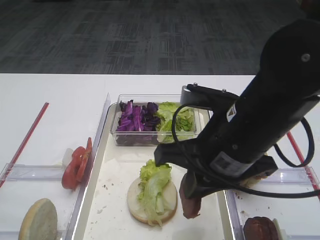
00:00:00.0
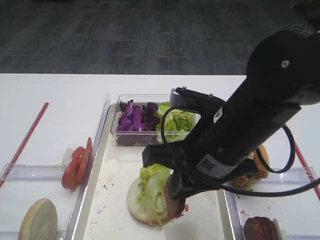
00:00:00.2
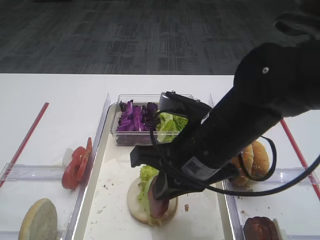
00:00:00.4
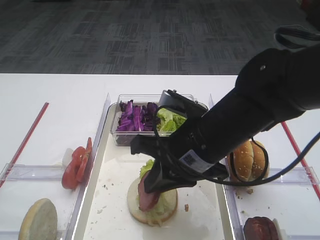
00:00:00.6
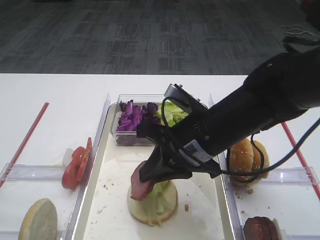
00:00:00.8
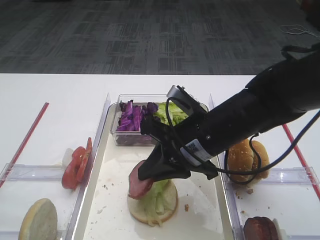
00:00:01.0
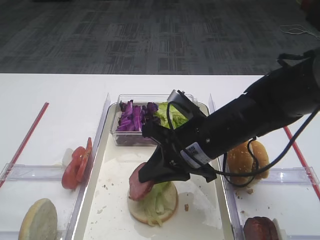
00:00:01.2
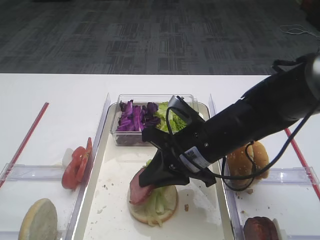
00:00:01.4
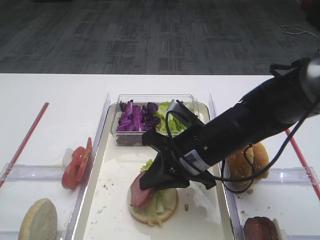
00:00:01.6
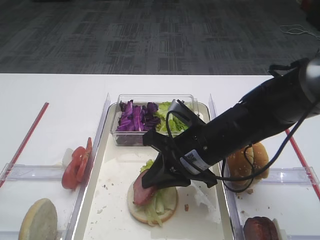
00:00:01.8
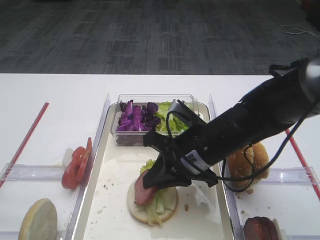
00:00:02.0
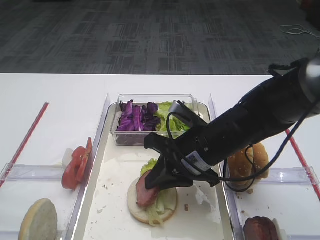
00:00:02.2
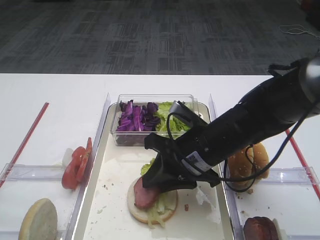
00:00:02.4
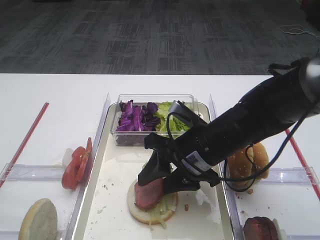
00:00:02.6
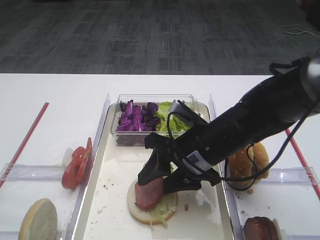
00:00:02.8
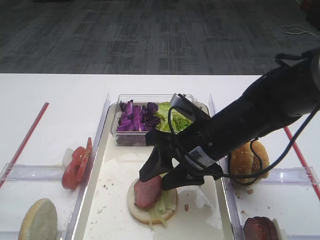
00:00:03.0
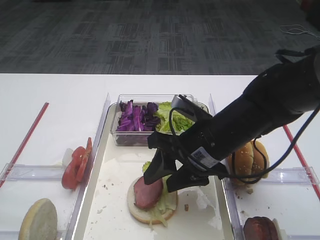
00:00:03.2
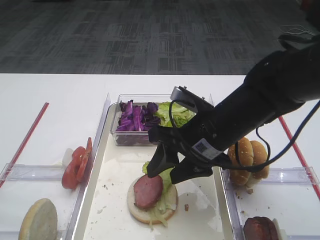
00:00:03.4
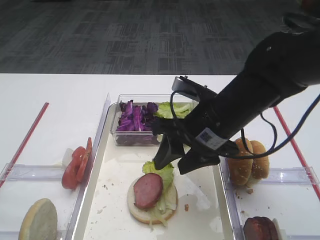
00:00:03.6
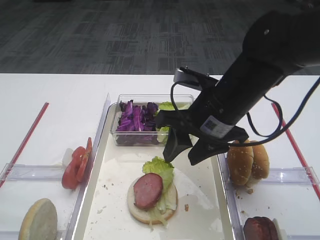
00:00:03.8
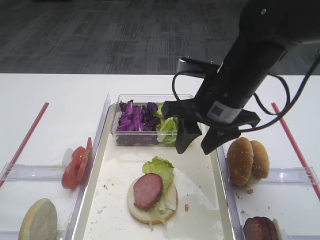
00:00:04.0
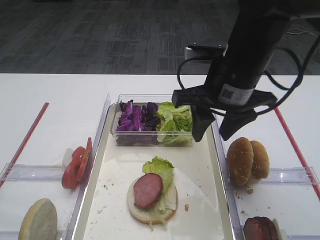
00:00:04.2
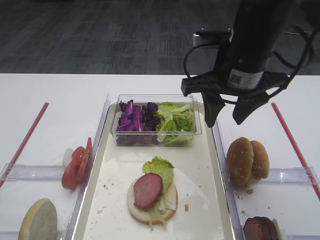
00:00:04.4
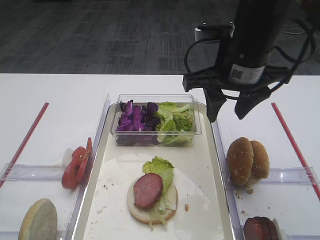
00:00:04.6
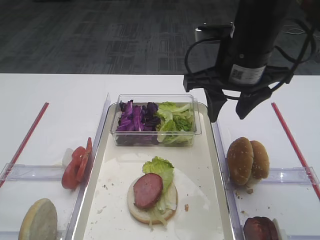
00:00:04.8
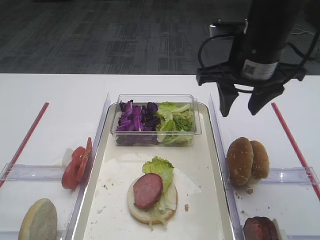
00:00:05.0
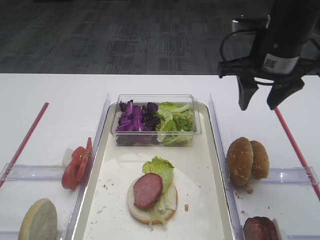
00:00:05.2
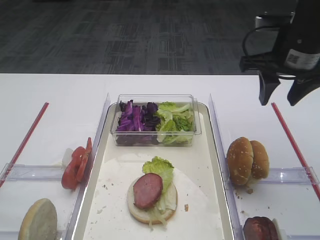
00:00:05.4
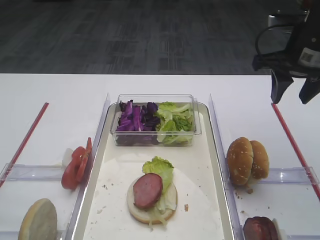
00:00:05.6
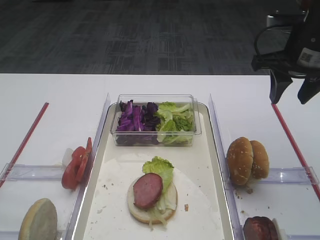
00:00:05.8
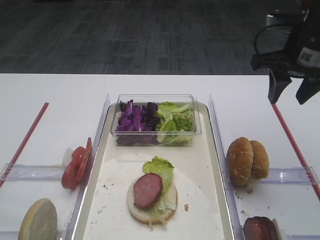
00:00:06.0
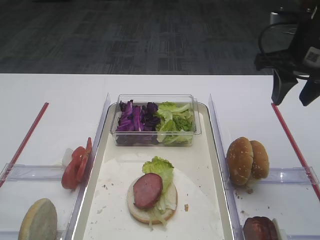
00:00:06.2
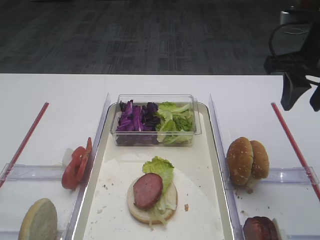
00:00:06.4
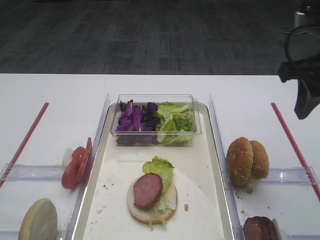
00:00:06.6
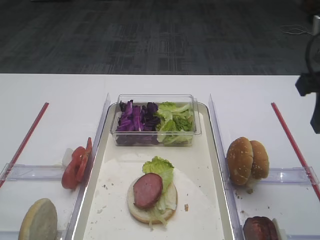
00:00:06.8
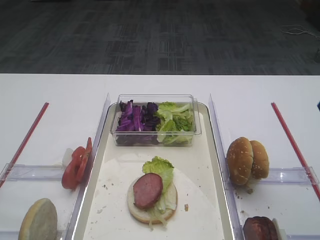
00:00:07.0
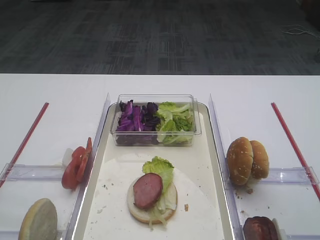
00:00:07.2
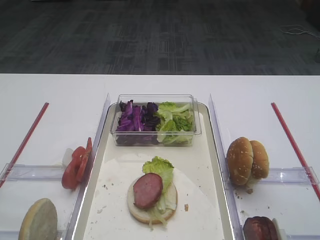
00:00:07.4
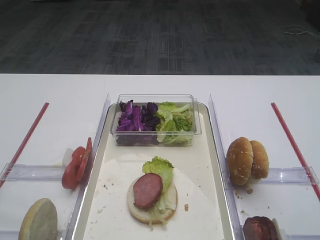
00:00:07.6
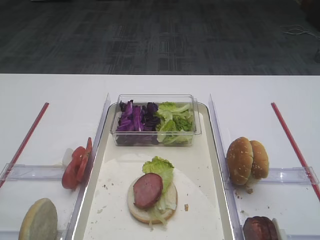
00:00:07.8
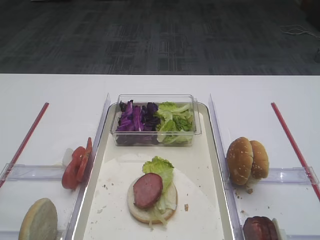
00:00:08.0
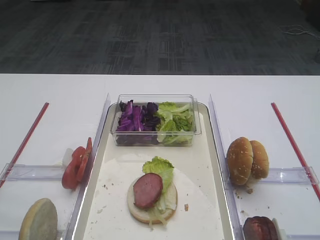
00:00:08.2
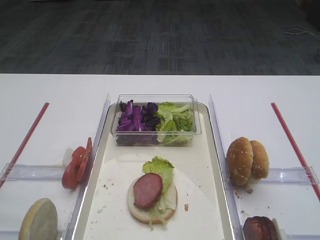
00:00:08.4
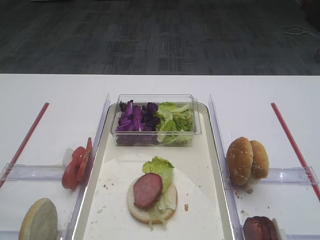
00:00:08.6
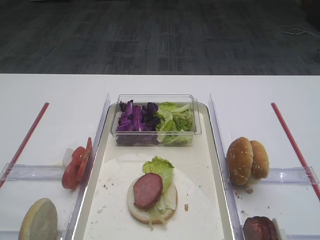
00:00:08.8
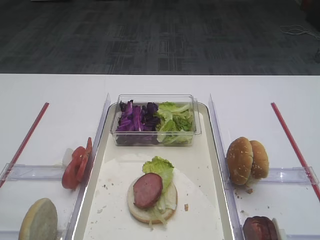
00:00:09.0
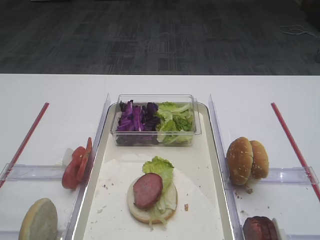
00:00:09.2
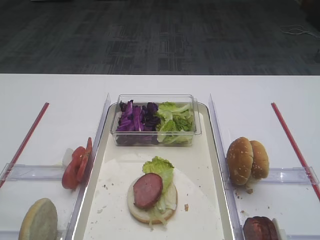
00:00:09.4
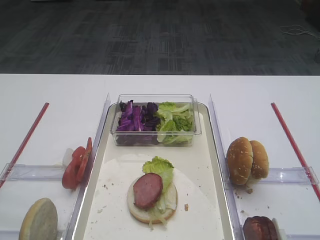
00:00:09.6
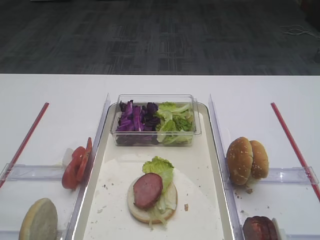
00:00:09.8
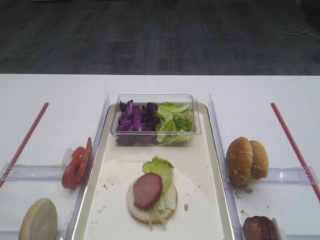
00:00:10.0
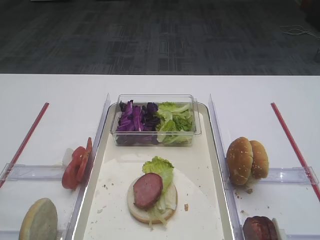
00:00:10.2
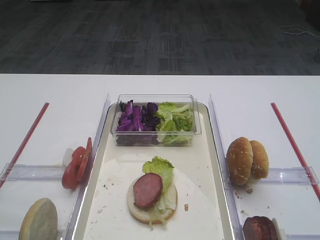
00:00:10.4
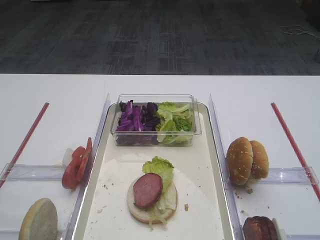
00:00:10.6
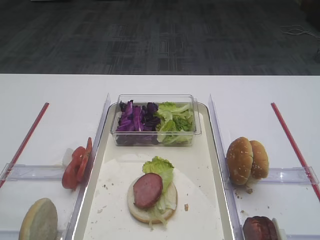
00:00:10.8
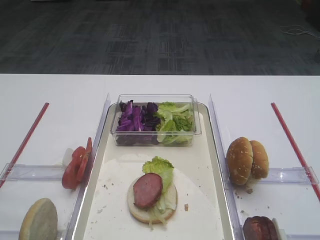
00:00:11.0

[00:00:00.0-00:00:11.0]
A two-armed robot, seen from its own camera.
Step, 00:00:00.0 to 00:00:04.0: Place the cutlet on the lettuce leaf with the right gripper.
00:00:00.0 to 00:00:01.6: The right gripper is displaced downward and forward by some 10 cm.
00:00:01.6 to 00:00:03.2: The right gripper opens.
00:00:03.2 to 00:00:04.8: The right gripper travels upward by approximately 10 cm.
00:00:04.8 to 00:00:06.2: The right gripper travels to the right by some 10 cm.
00:00:06.2 to 00:00:07.8: The right gripper goes some 25 cm backward.

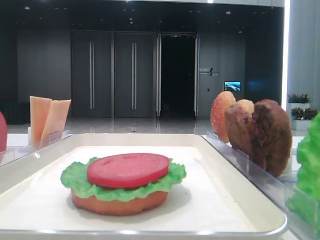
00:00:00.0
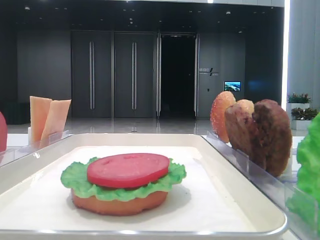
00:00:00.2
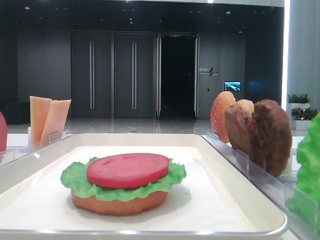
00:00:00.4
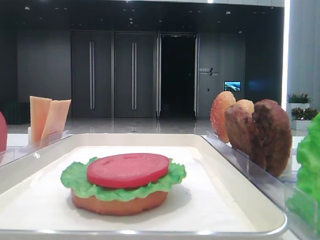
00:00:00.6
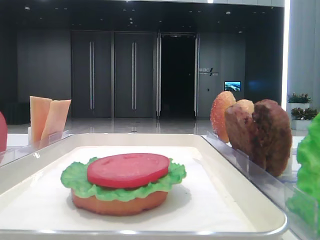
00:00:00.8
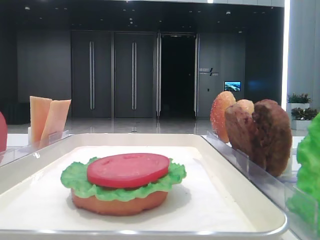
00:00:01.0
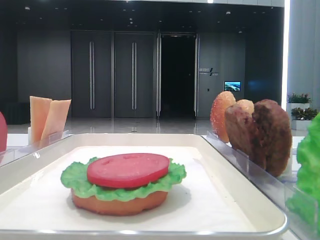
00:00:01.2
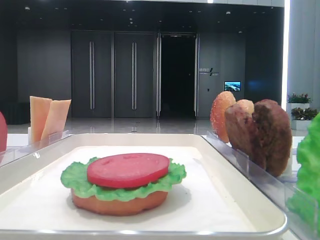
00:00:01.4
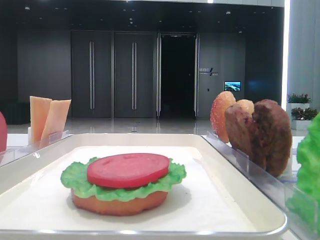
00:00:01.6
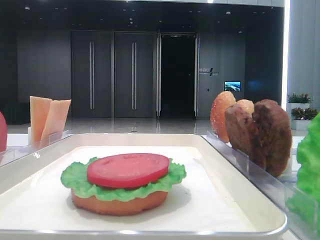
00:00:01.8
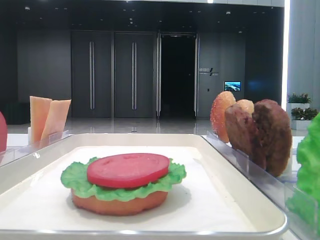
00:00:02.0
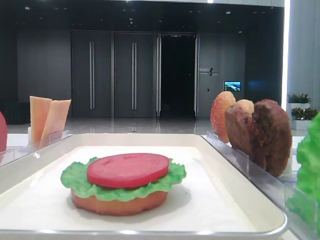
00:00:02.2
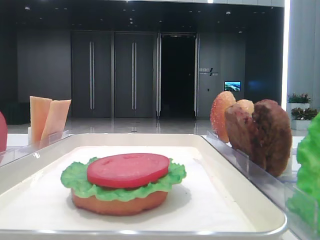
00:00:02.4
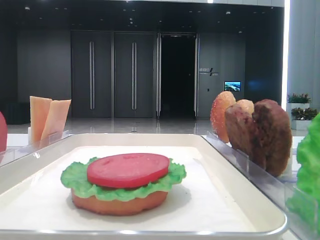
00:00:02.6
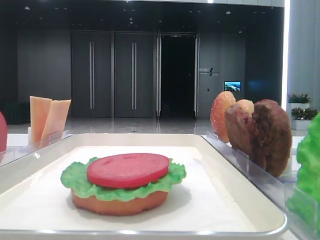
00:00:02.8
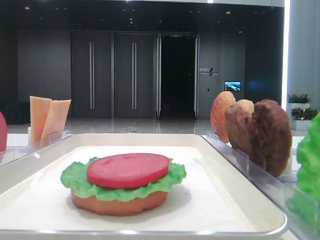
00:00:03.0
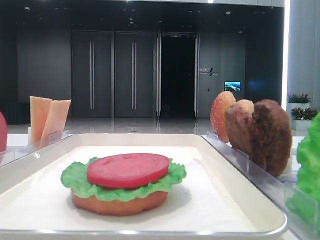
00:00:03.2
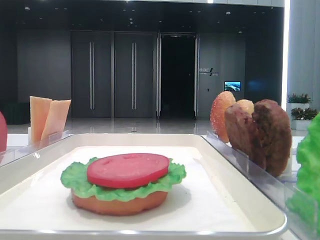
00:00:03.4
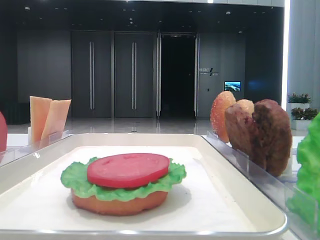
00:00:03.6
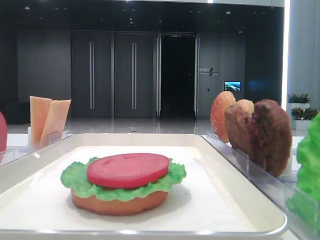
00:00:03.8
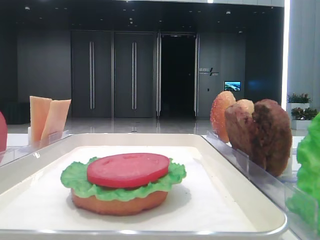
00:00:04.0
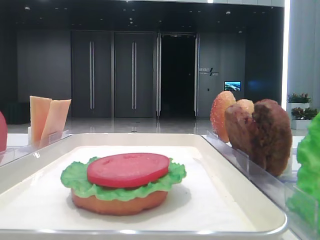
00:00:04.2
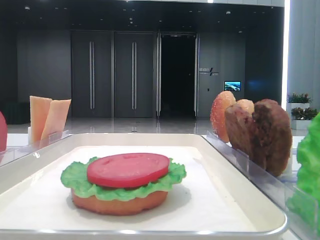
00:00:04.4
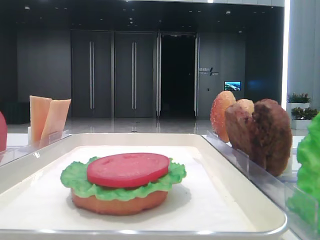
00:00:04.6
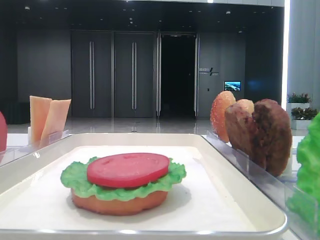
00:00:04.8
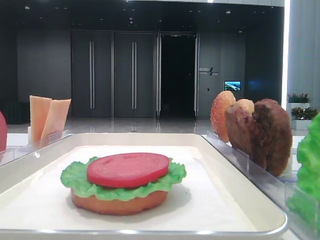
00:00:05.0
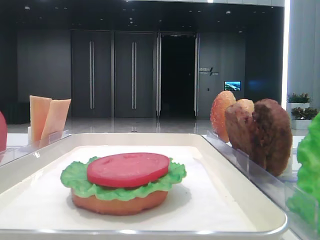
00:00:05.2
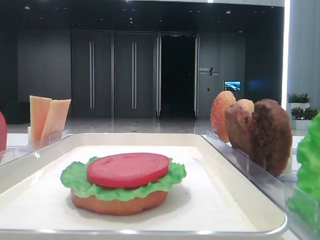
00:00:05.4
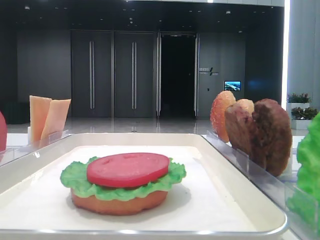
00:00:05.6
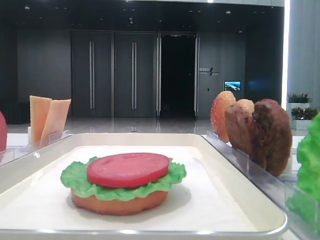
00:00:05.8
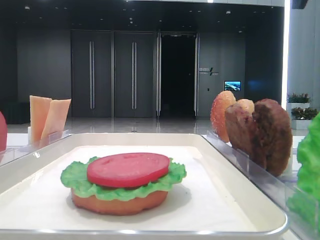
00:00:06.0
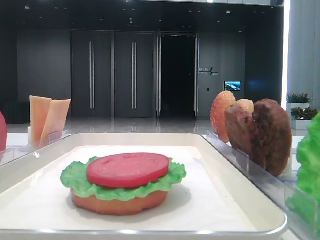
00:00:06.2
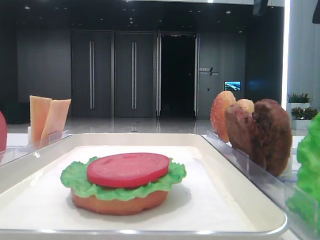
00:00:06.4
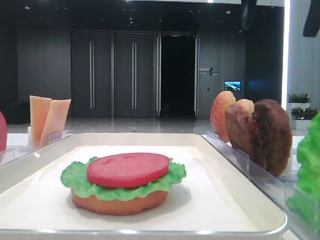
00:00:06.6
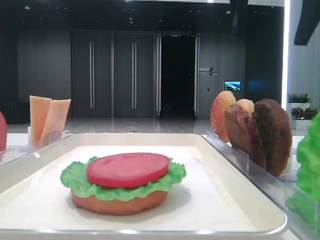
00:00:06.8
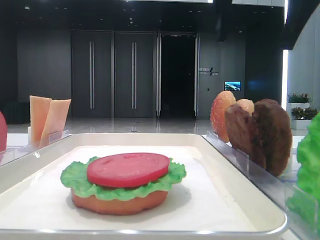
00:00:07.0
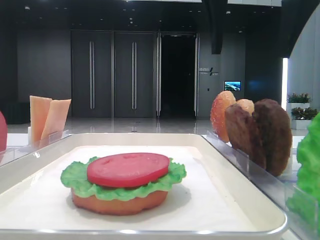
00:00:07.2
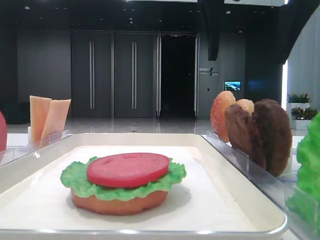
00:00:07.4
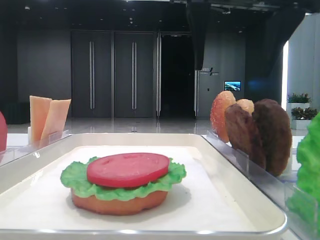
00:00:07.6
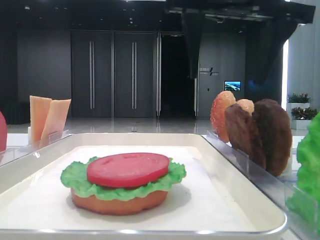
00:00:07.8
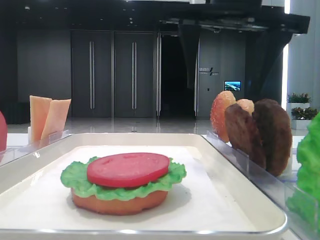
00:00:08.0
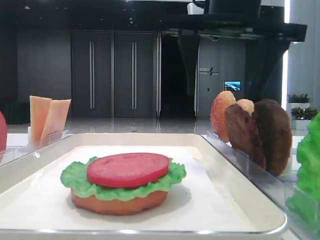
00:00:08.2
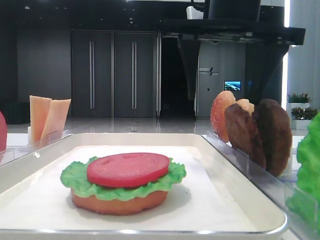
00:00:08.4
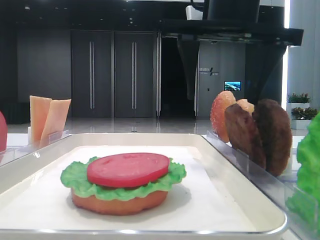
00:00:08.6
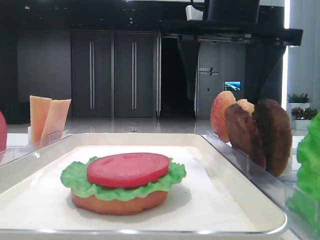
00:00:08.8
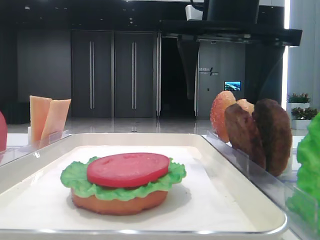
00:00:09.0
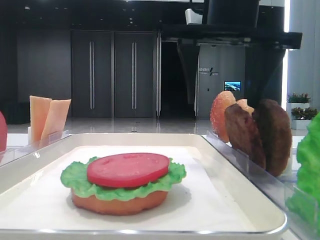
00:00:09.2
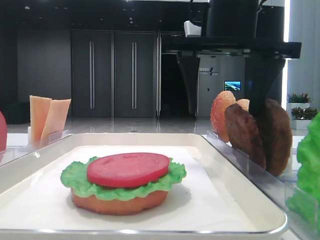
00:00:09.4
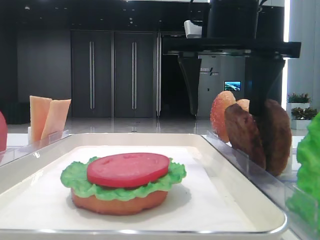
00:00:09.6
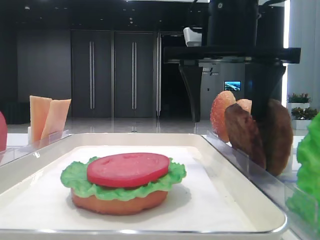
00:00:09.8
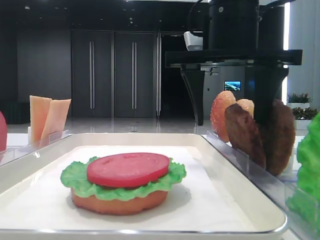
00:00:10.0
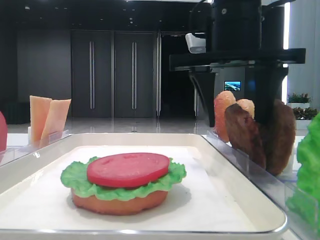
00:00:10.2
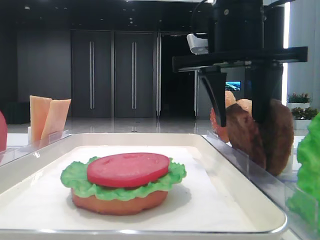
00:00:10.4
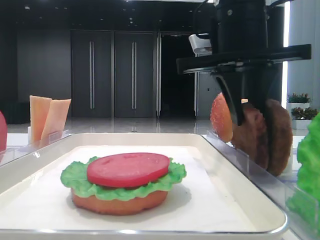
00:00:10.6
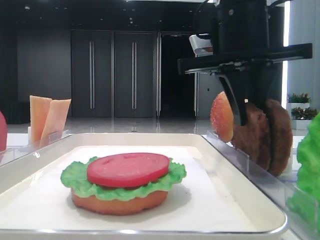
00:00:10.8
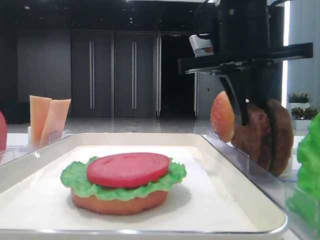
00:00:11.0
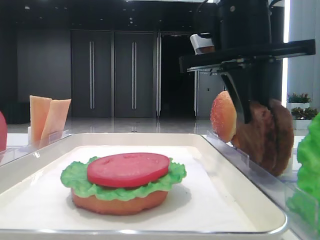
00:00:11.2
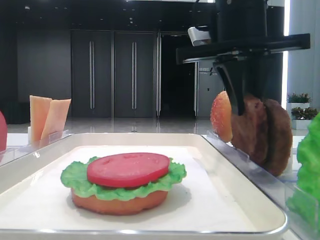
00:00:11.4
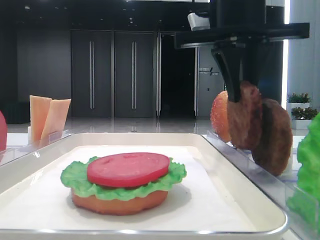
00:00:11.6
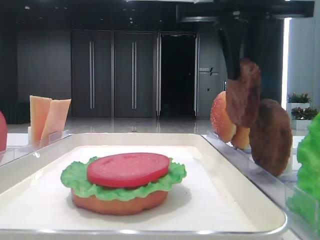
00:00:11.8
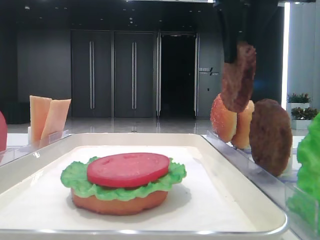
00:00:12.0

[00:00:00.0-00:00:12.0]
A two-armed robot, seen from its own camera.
Step, 00:00:00.0 to 00:00:10.8: Grab the patty with the right hand.
00:00:01.6 to 00:00:03.0: Neither gripper changes place.
00:00:06.0 to 00:00:07.6: The right gripper moves to the left and downward, some 15 cm.
00:00:07.6 to 00:00:09.0: The grippers stay close to where they were, moving slightly.
00:00:09.0 to 00:00:10.4: The right gripper closes up.
00:00:10.4 to 00:00:12.0: The right gripper travels upward by roughly 10 cm, and closes its fingers.
